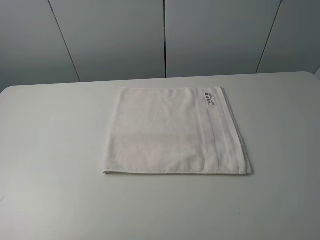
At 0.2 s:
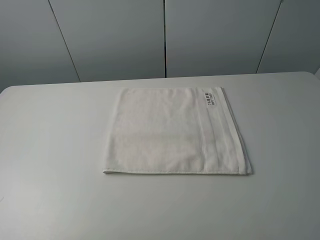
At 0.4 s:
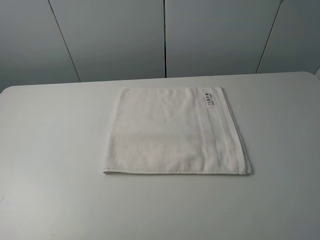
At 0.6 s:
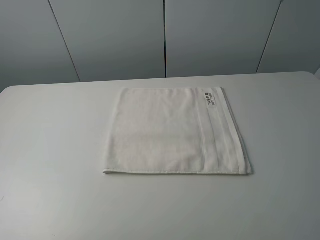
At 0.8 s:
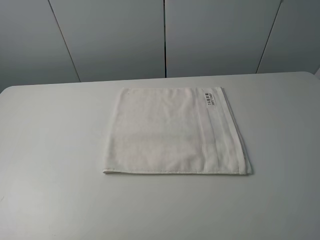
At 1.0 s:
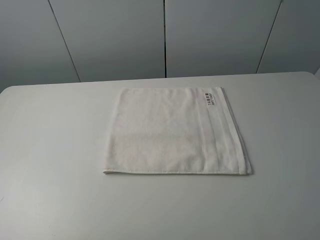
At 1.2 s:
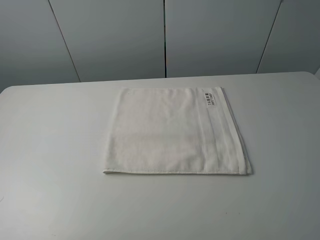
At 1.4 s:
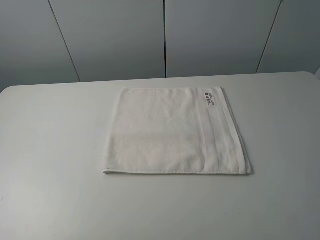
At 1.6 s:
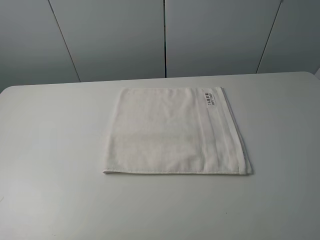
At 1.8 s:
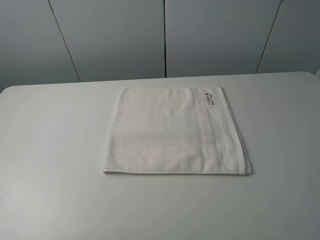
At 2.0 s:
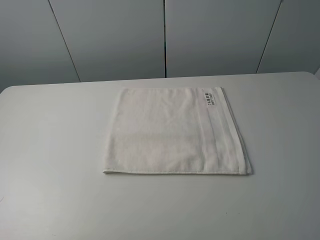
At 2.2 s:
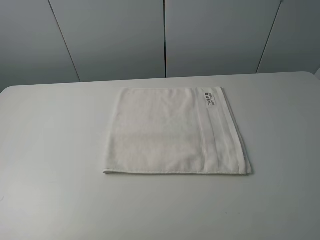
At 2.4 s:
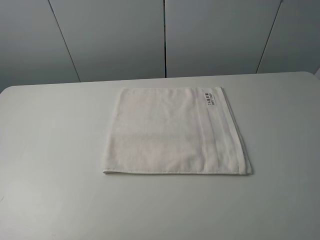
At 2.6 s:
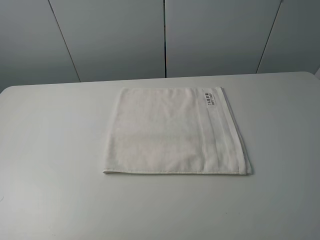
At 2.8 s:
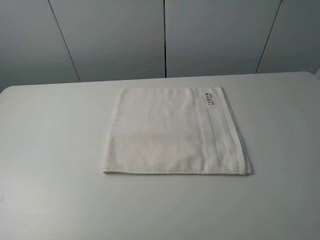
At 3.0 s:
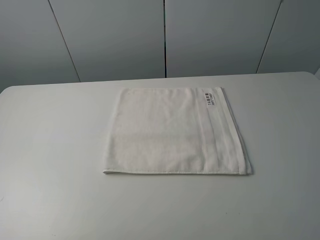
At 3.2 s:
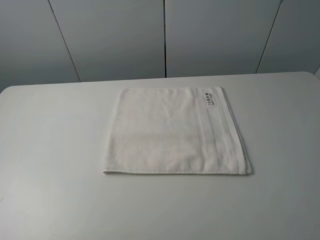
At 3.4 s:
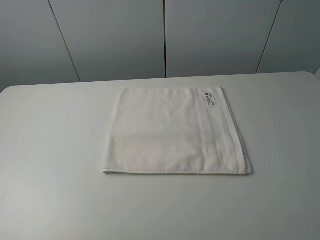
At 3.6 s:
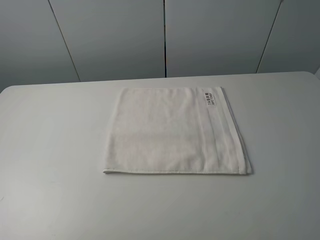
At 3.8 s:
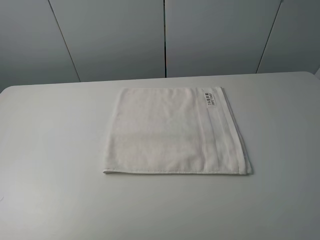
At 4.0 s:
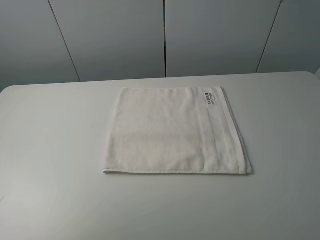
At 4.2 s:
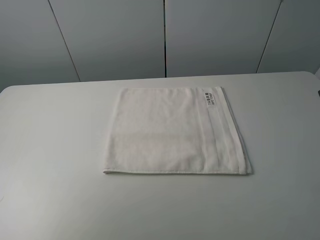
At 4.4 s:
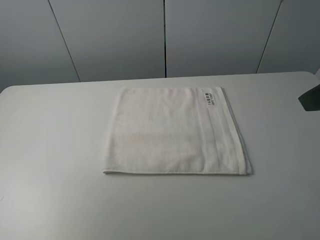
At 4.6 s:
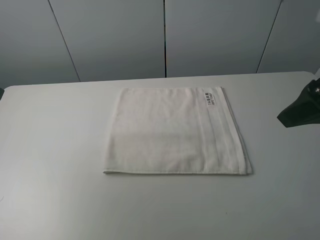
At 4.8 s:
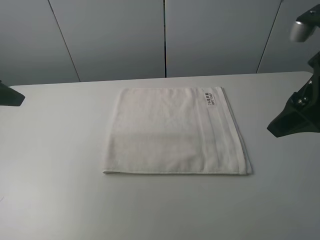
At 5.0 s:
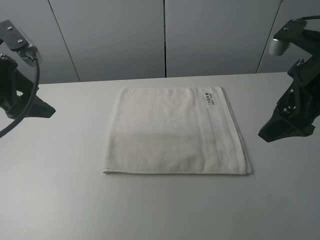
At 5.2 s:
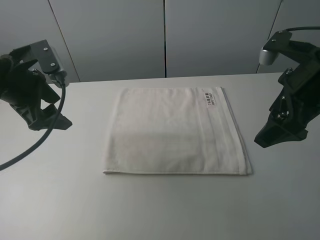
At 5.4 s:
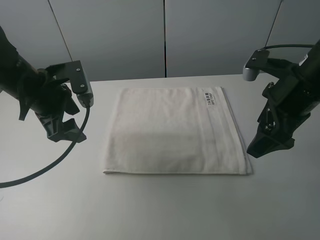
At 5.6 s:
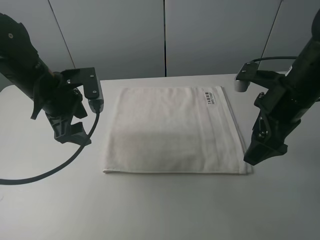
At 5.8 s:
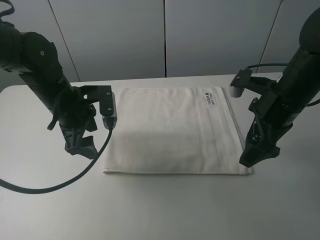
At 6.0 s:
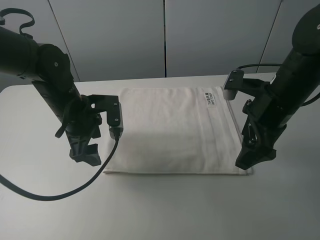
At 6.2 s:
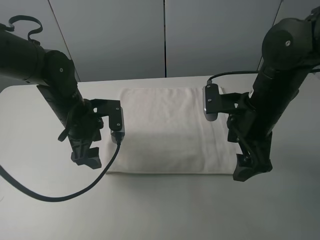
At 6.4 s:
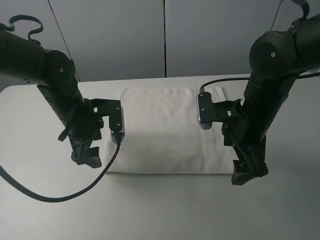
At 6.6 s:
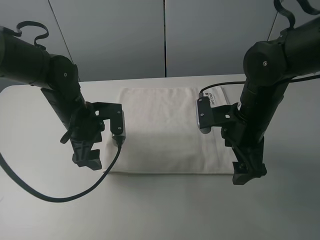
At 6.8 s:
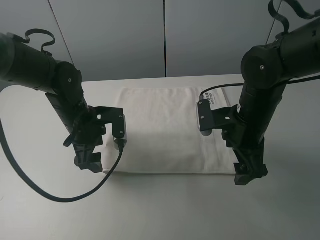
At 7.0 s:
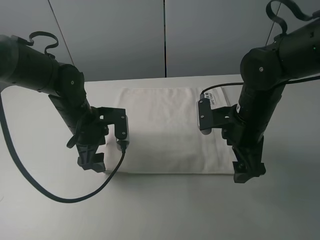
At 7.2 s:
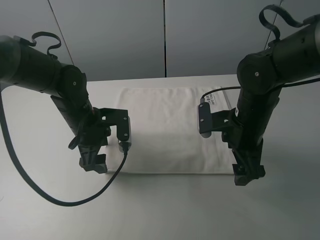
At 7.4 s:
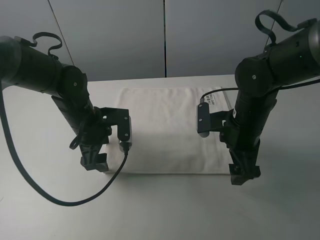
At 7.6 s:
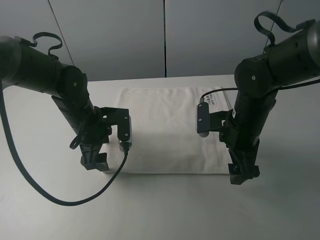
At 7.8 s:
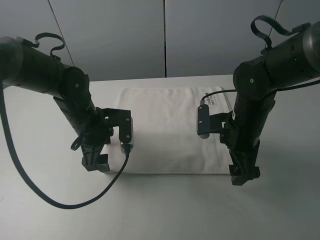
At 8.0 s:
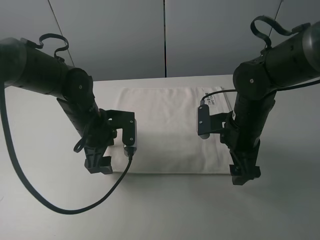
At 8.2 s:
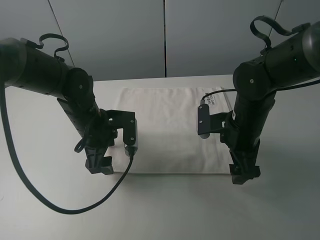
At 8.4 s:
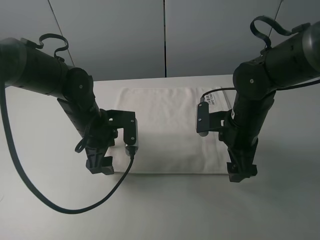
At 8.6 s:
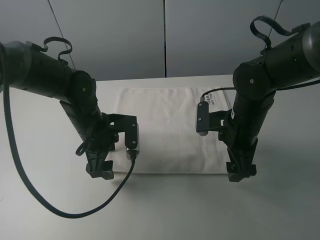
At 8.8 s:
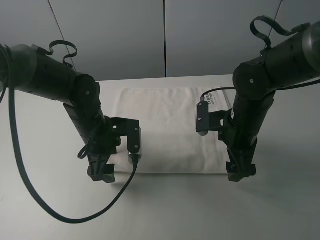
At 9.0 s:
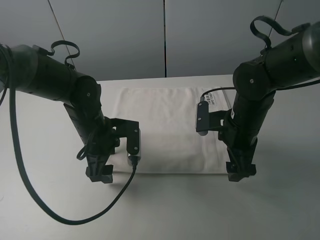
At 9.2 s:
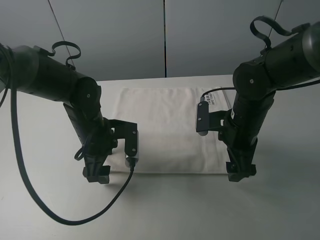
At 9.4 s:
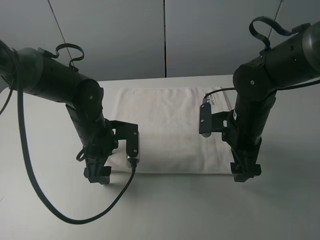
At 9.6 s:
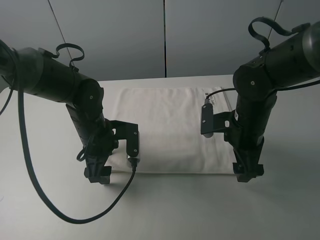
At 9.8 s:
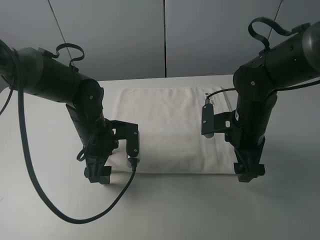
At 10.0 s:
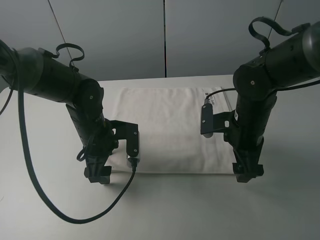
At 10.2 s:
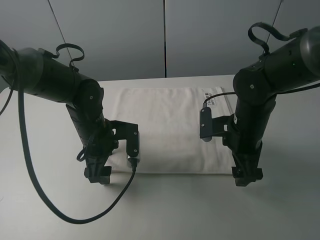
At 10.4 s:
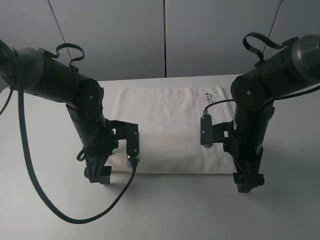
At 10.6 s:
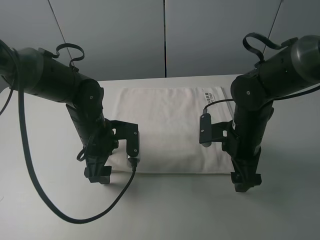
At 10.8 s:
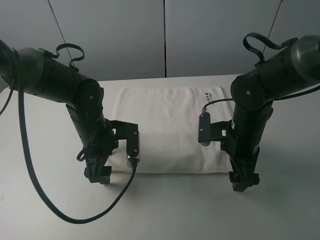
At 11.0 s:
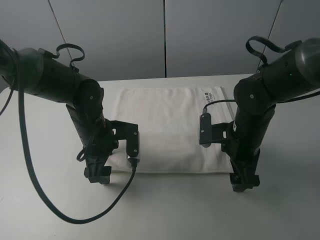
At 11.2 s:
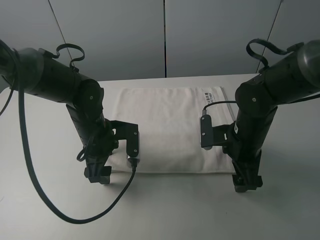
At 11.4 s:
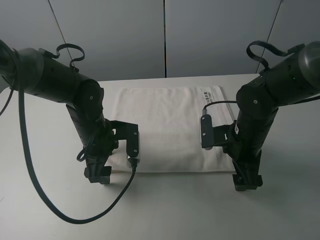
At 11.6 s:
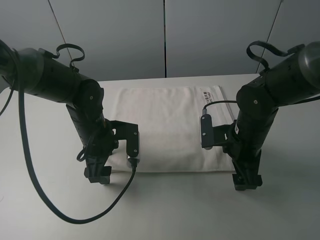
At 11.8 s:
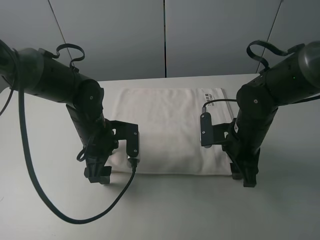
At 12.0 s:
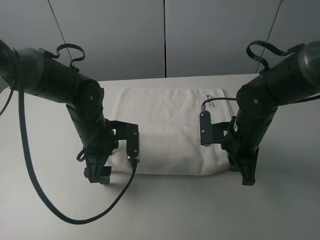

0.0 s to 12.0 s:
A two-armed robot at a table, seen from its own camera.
Task of the whole recording: fold the towels on the table.
0.0 to 3.0 s: Neither gripper changes place.
3.0 to 4.4 s: The grippers both shift forward by approximately 15 cm.
4.4 to 6.0 s: The right gripper shifts approximately 20 cm downward, forward and to the left. The left gripper moves to the right and downward, approximately 25 cm.
6.0 to 7.6 s: The right gripper heads downward, covering roughly 5 cm.
7.6 to 10.4 s: There are only small adjustments of the grippers.
10.4 to 12.0 s: The right gripper closes up.

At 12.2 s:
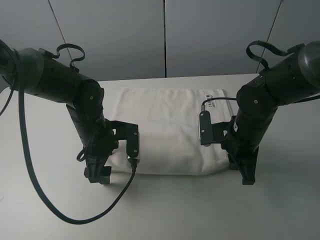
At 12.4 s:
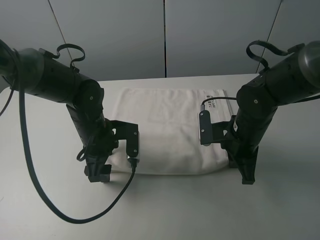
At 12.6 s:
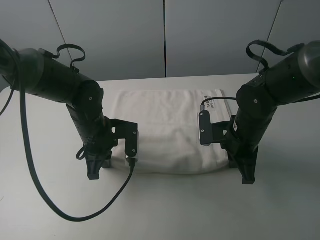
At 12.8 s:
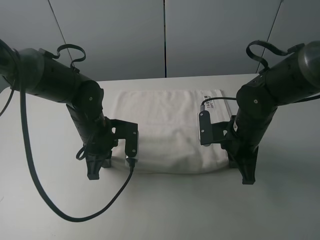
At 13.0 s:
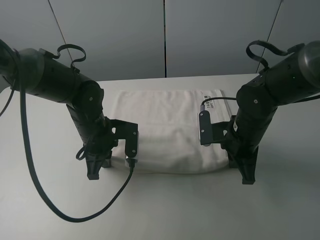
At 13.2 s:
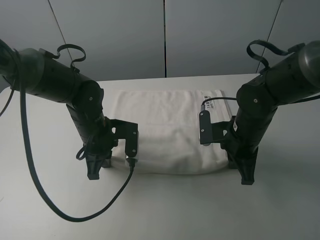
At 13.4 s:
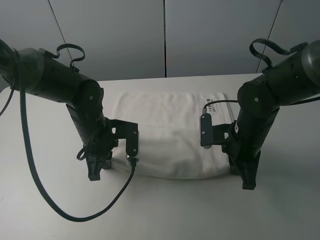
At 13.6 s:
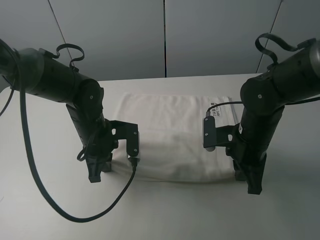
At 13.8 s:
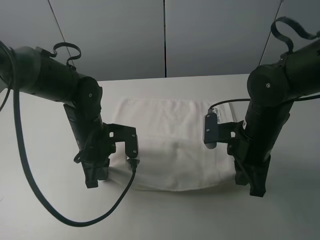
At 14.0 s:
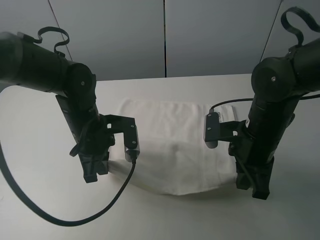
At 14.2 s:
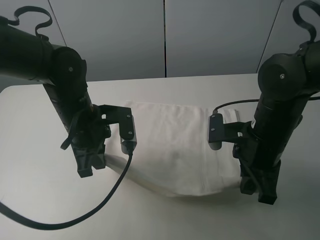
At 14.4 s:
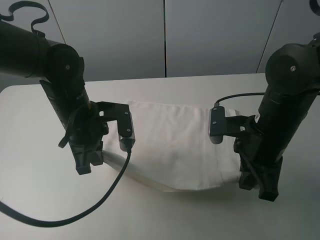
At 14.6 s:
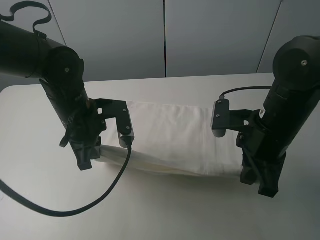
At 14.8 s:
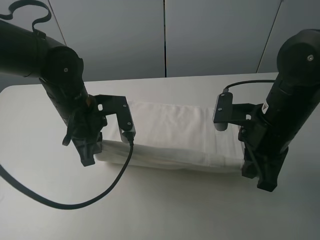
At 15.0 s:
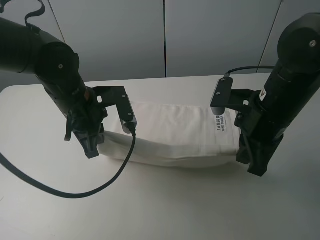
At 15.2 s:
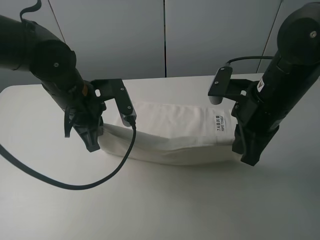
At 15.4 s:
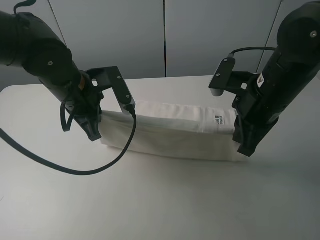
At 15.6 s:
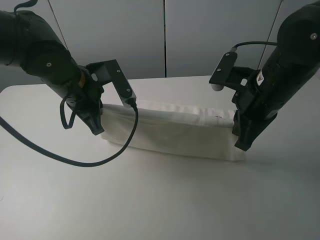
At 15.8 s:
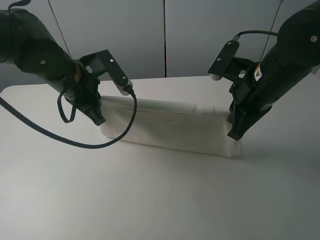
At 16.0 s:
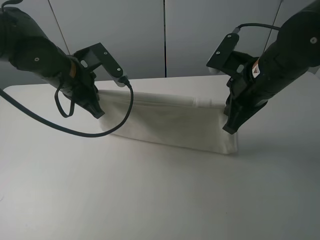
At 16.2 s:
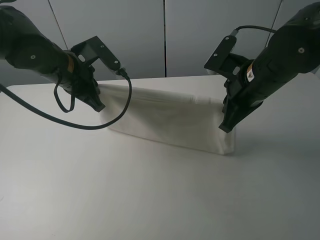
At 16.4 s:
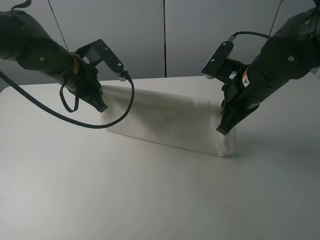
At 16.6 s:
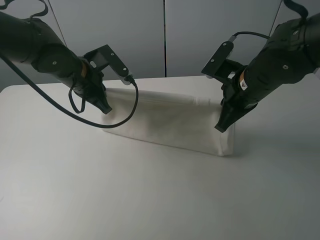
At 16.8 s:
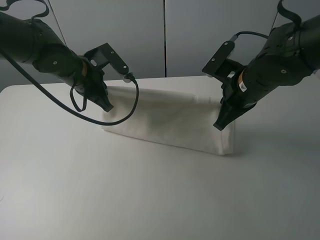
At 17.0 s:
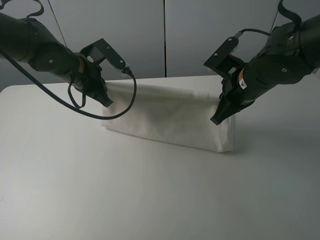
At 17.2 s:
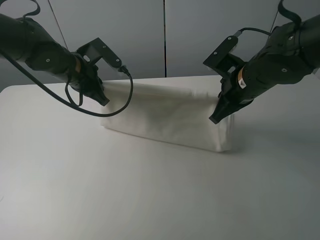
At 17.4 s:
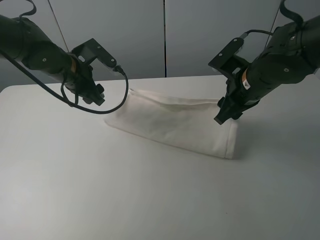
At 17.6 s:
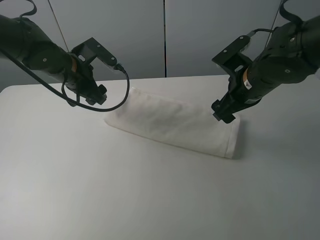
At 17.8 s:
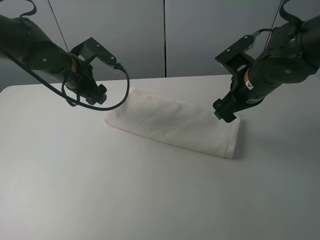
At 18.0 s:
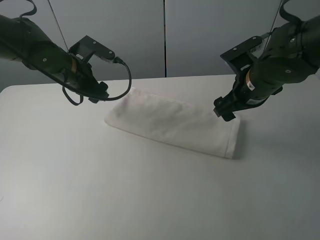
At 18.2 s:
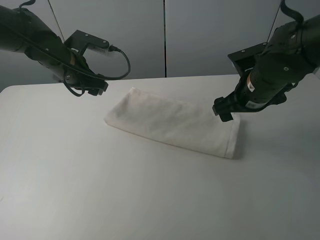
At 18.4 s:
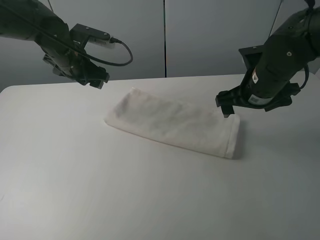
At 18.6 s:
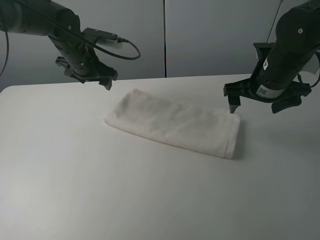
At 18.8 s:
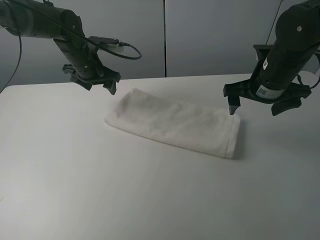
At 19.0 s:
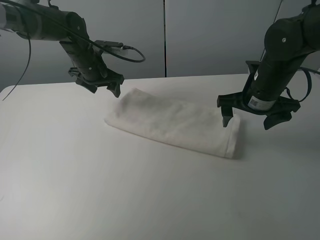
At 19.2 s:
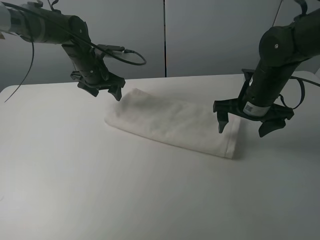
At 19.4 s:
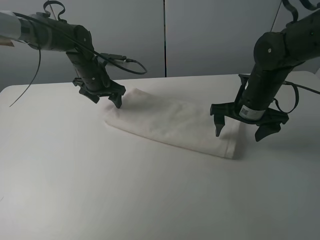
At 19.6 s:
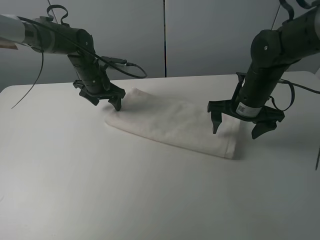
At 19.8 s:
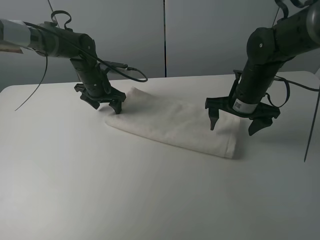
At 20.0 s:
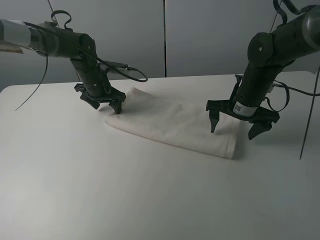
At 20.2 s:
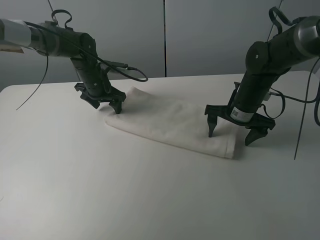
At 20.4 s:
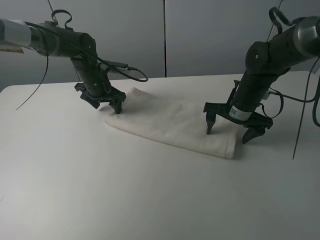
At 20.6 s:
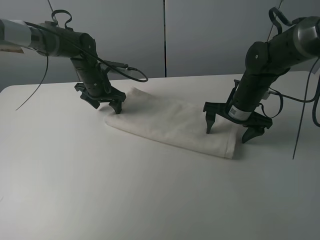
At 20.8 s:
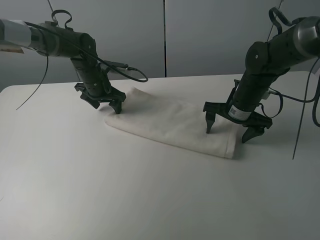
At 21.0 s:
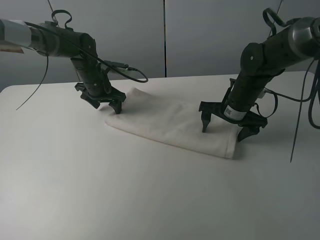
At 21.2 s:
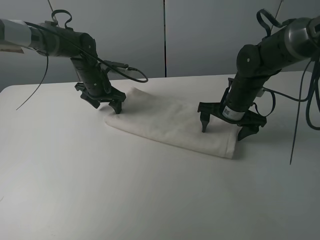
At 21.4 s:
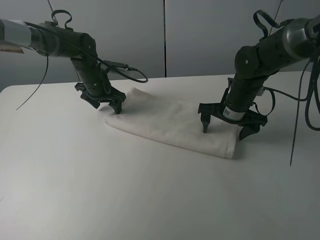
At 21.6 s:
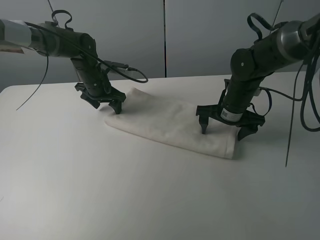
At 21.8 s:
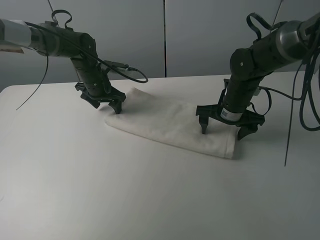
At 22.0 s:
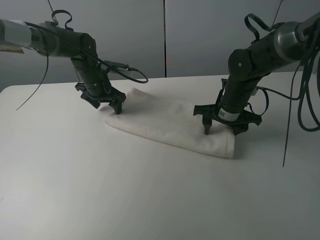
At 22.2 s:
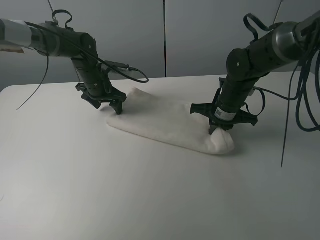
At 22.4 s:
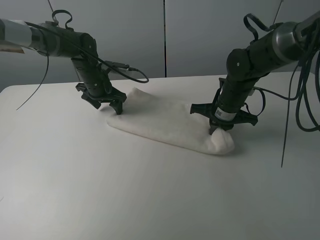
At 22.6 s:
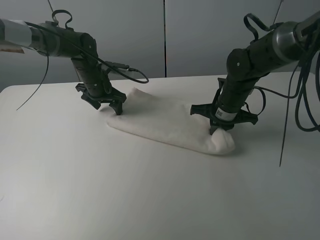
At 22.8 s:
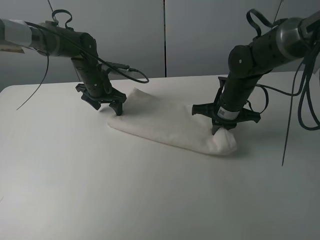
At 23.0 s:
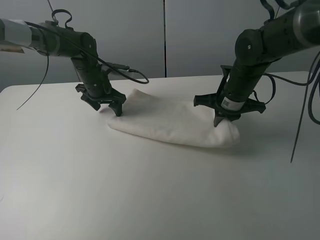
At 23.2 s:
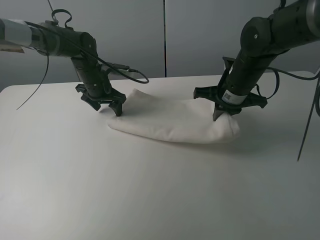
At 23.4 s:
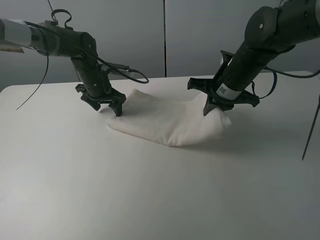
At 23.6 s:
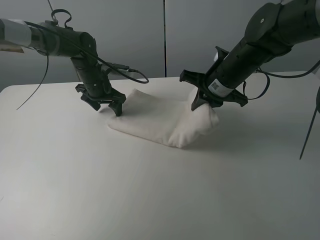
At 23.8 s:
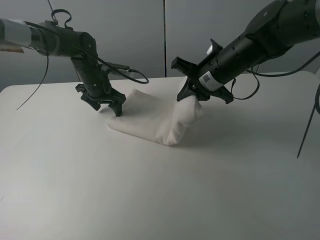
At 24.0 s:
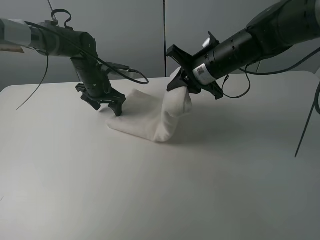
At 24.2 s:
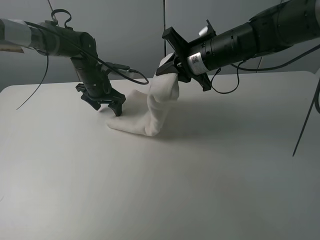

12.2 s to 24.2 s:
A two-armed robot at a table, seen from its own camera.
Task of the whole recording: fold the towels on the table.
Step, 13.0 to 17.4 s: Fold the white towel upwards with the right gripper.
Step, 17.8 to 20.0 s: Press on the white towel with the left gripper.
12.2 to 13.8 s: The left gripper closes its fingers.
13.8 to 15.2 s: The two grippers go some 5 cm upward.
15.2 to 16.6 s: The grippers both shift forward by roughly 5 cm.
16.6 to 18.2 s: The right gripper opens its fingers. Meanwhile the left gripper opens its fingers.
18.2 to 19.8 s: The right gripper ends up some 5 cm from where it was. The left gripper shifts approximately 10 cm downward and forward.
19.8 to 21.2 s: There are only small adjustments of the grippers.
21.2 to 22.6 s: The right gripper closes.
22.6 to 24.2 s: The right gripper heads upward and to the left, covering about 15 cm.
